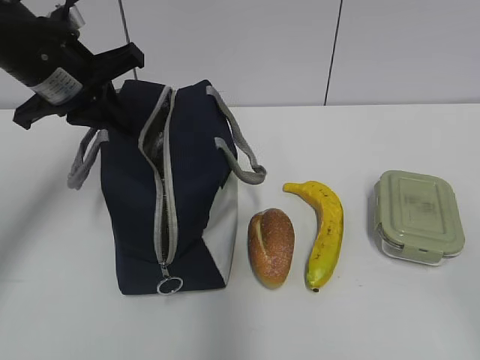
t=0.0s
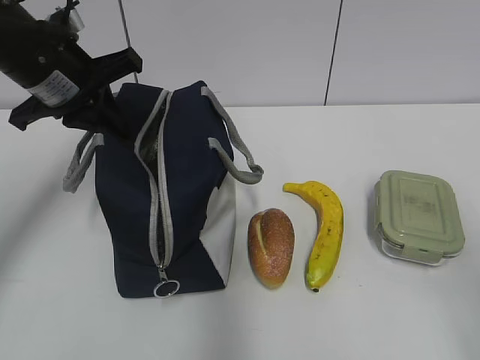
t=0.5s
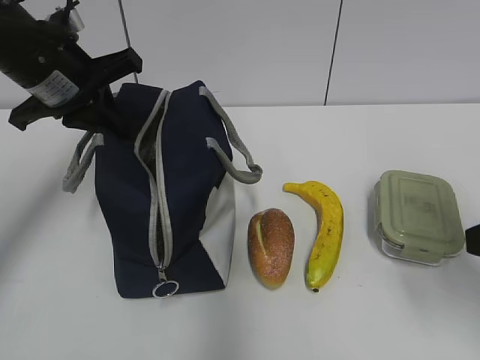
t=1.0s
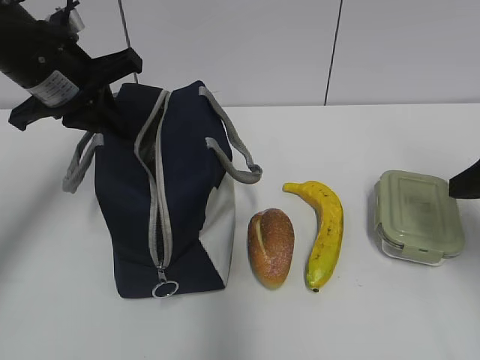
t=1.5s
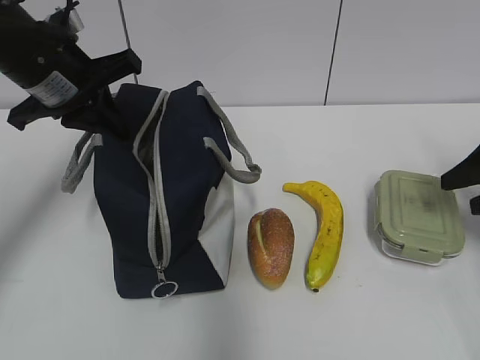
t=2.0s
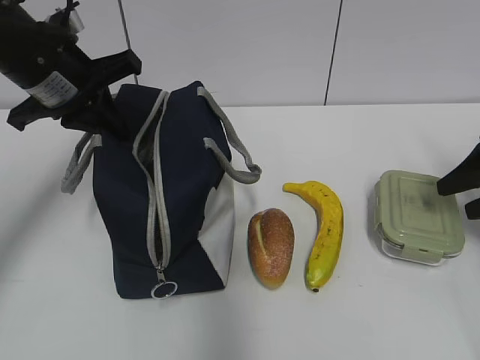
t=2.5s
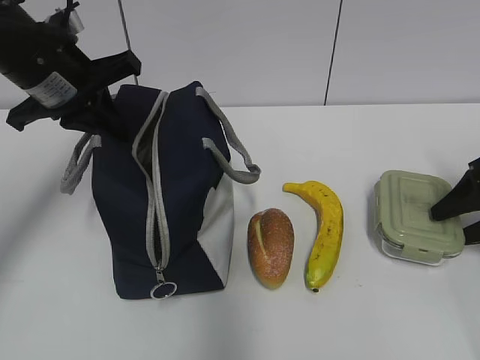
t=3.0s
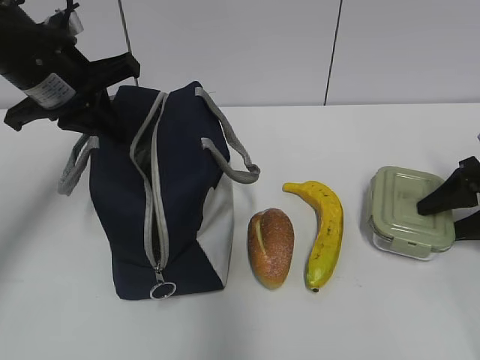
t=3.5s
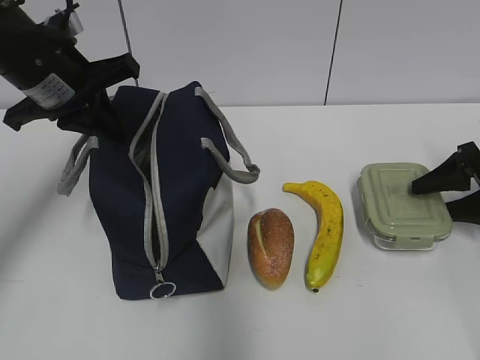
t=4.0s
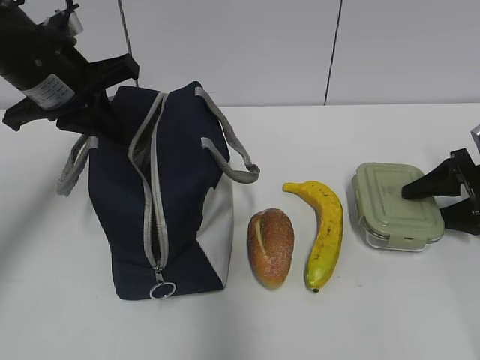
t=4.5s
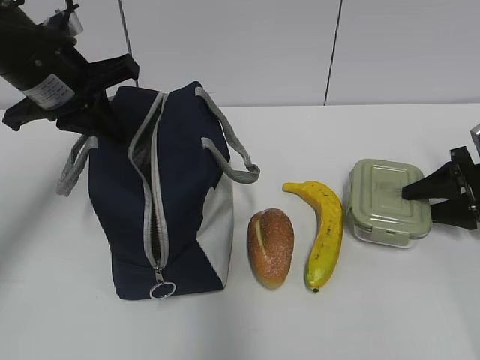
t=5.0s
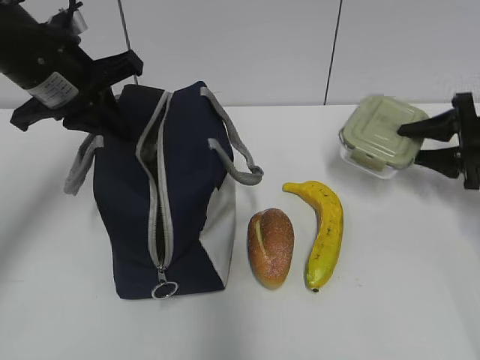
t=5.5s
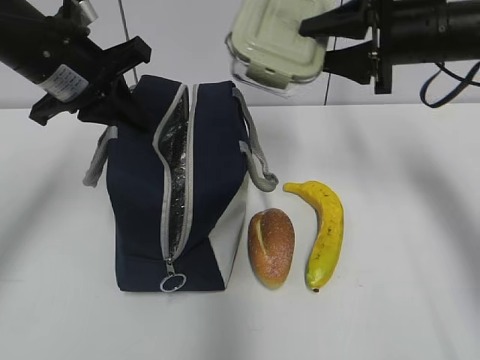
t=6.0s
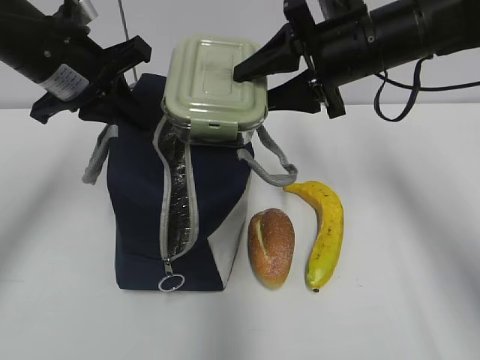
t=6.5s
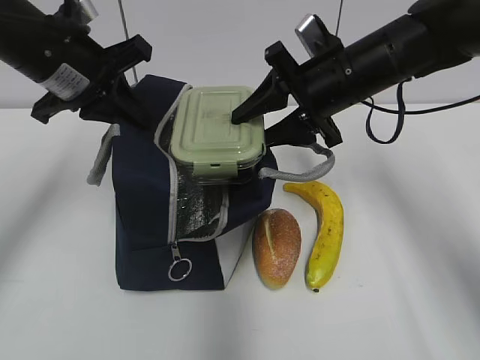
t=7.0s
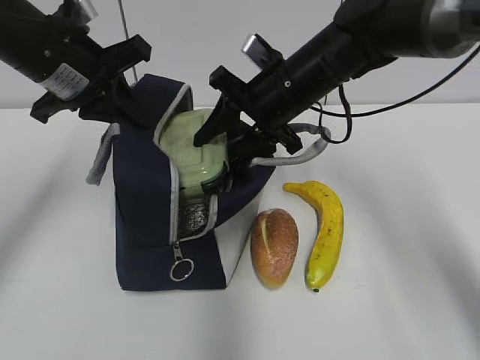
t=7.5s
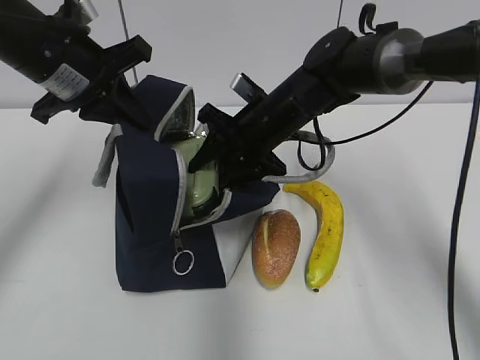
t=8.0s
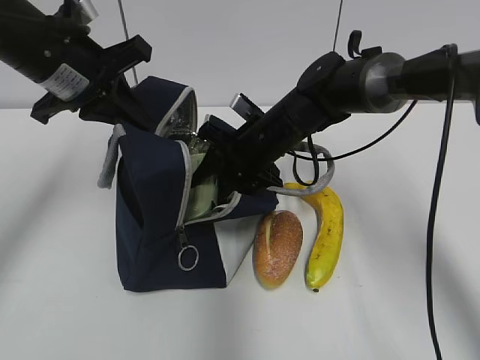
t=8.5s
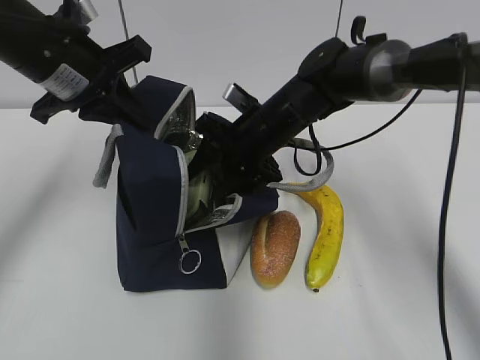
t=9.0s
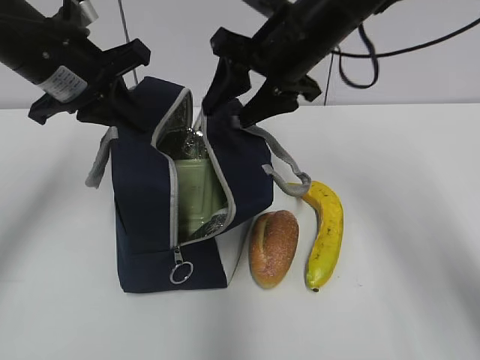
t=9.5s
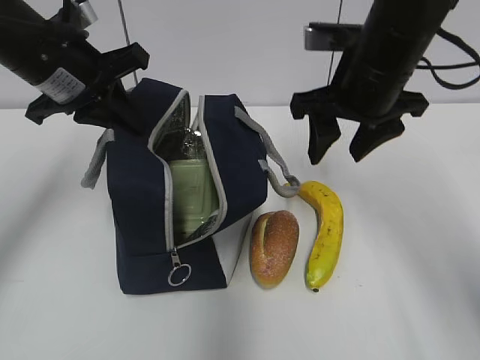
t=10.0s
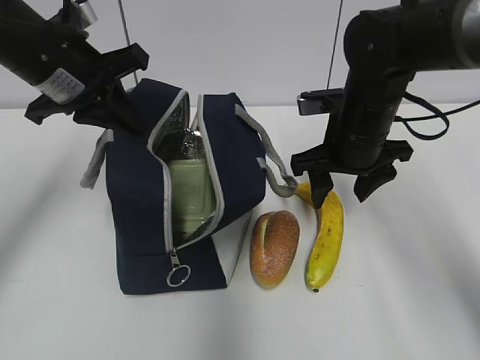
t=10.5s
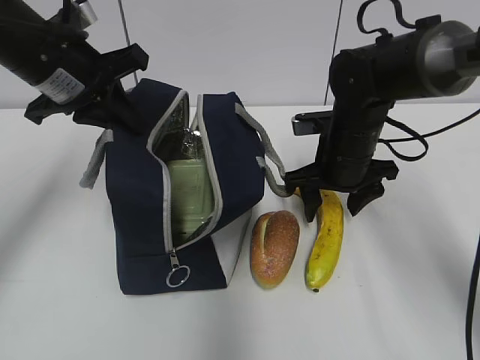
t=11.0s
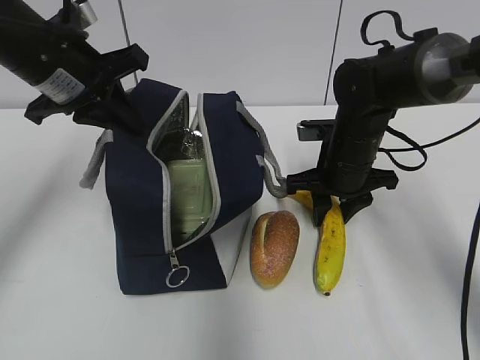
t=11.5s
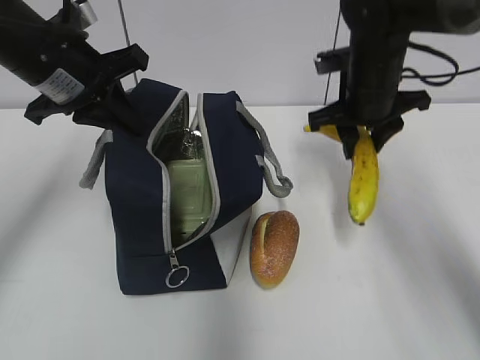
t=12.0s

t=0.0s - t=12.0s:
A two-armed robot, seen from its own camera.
Step, t=0.0s - t=5.0s: Grab the lunch box with your right hand.
Step, t=6.5s - t=9.0s: Place it into the bag with your right hand.
Step, t=9.5s - t=11.5s: Grab the banana with your right hand.
t=0.0s - t=2.0s: The right gripper heads forward, covering about 30 cm.
t=2.0s - t=4.0s: The right gripper shifts about 5 cm downward.
t=4.0s - t=6.0s: The right gripper heads to the left and upward, covering roughly 20 cm.
t=6.0s - t=8.0s: The right gripper moves to the left and downward, some 20 cm.
t=8.0s - t=10.0s: The right gripper shifts about 15 cm upward, to the right and backward.
t=10.0s - t=12.0s: The right gripper heads forward, covering roughly 5 cm, and moves approximately 15 cm downward and comes back.

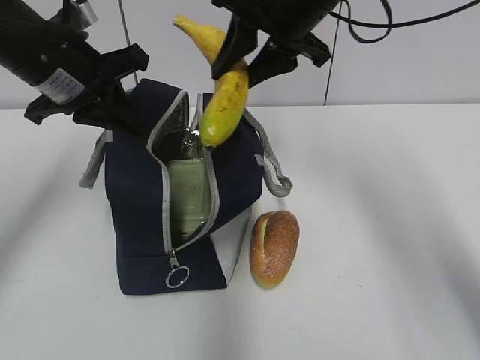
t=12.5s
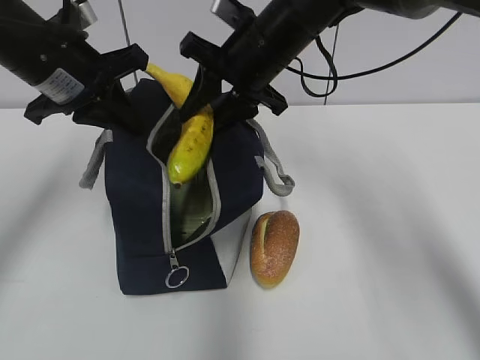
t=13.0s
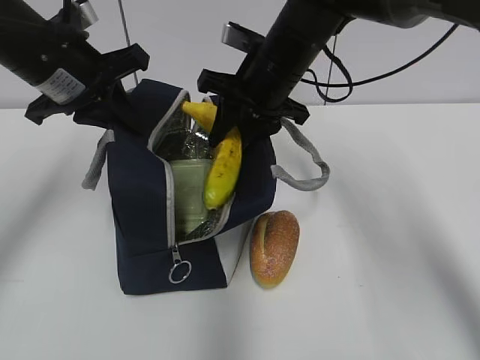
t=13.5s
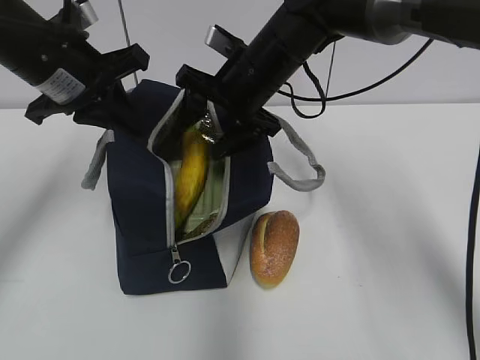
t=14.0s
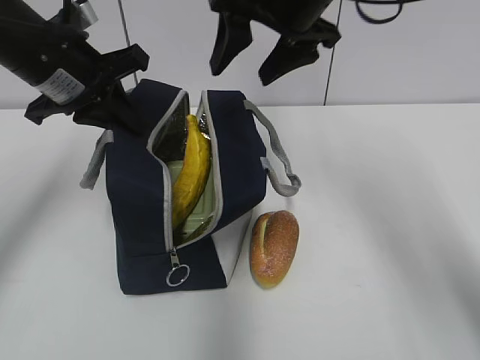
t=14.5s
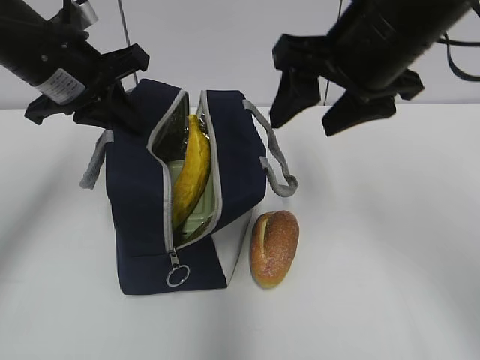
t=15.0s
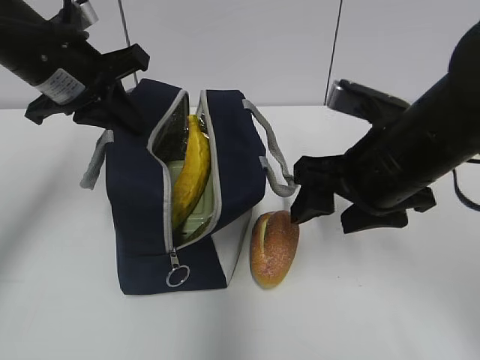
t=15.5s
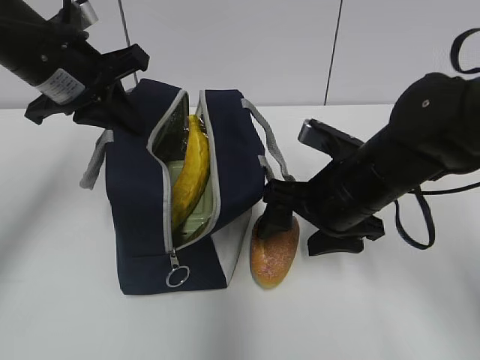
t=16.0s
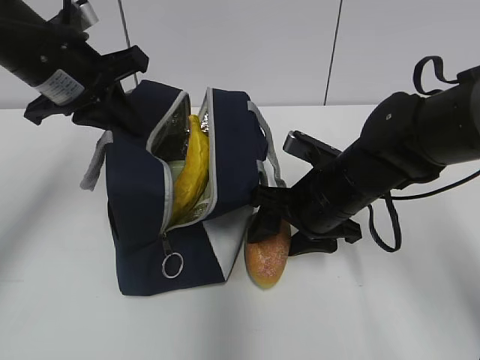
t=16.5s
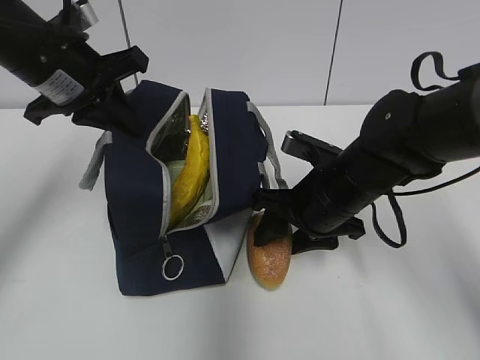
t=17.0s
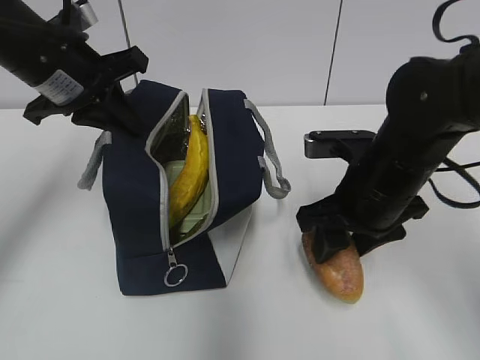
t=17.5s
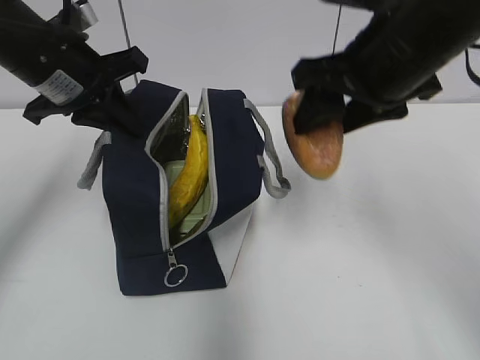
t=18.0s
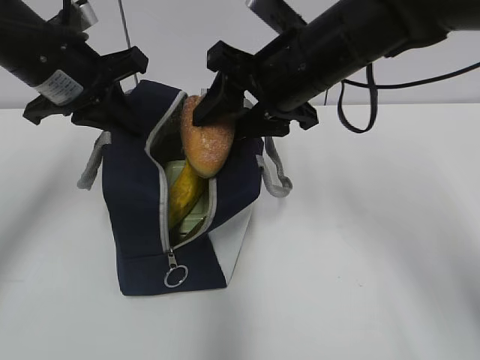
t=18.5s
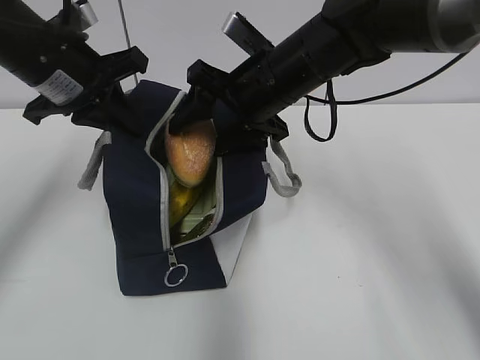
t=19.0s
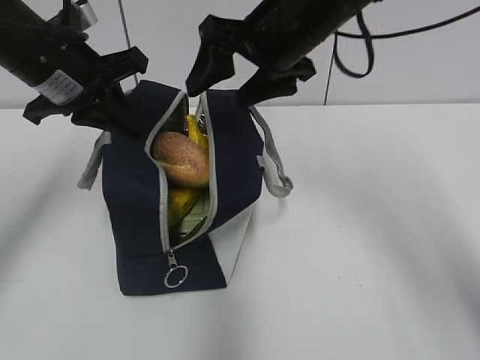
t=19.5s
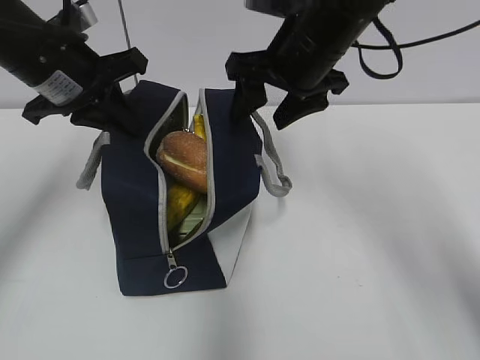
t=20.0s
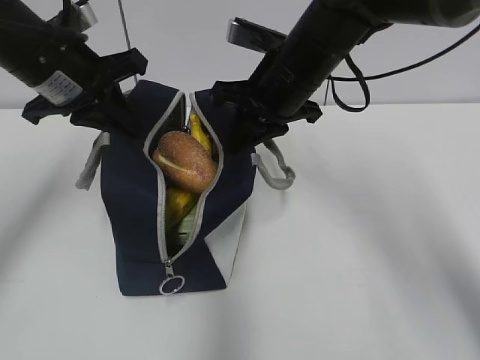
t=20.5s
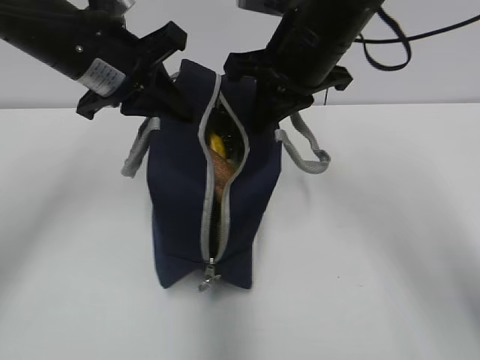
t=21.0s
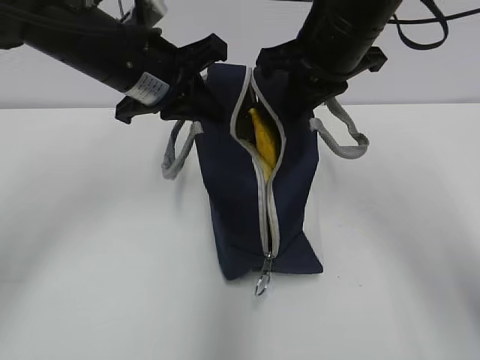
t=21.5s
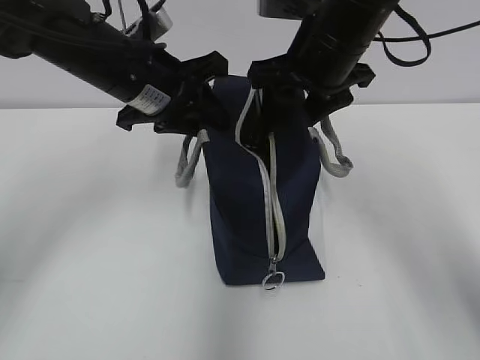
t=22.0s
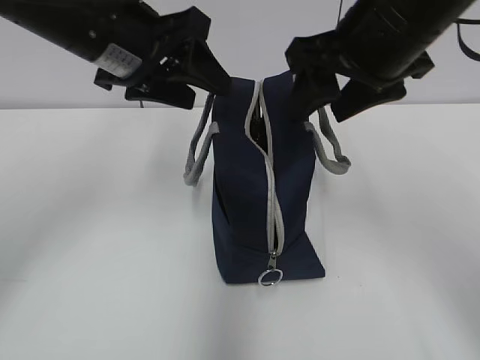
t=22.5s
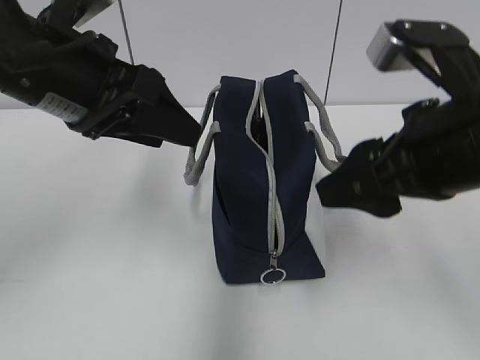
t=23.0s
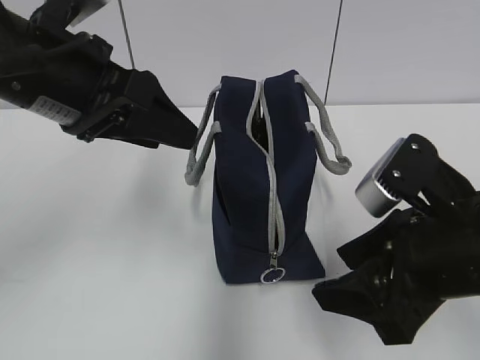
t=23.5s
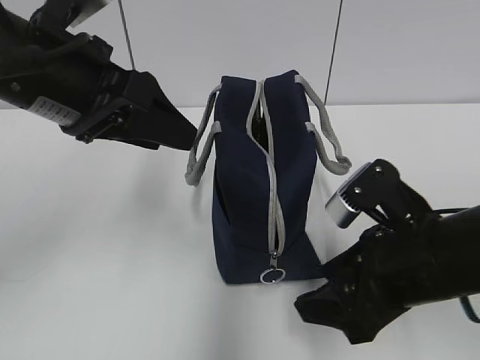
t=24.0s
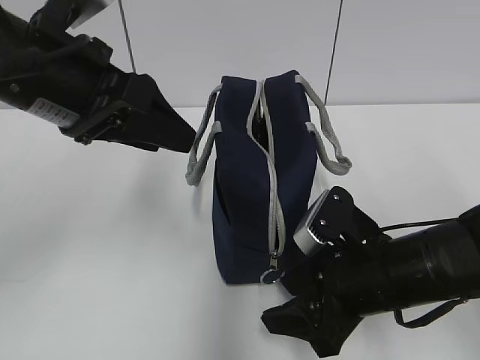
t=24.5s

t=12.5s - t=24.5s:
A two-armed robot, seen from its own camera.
Step, t=12.5s - t=14.0s: Place it into the bag with your right hand.
Step, t=14.5s - t=17.0s: Grab the bread with your right hand.
Step, t=19.5s - t=20.5s: Grab the lunch bag with your right hand.
Step, t=21.0s - t=22.0s: Move the lunch bag to the right.
t=12.5s - t=14.5s: The right gripper reaches approximately 10 cm downward, then returns, and opens.
t=14.5s - t=16.5s: The right gripper travels downward by roughly 20 cm.
t=16.5s - t=18.5s: The right gripper travels upward by approximately 15 cm.
t=18.5s - t=20.5s: The right gripper changes place by some 5 cm, and closes.
t=20.5s - t=22.5s: The right gripper is displaced backward, upward and to the right by approximately 15 cm, and opens up, while the left gripper goes approximately 5 cm to the right, and opens.
t=22.5s - t=24.5s: The left gripper is displaced backward by about 5 cm. Meanwhile the right gripper is displaced downward by about 20 cm.

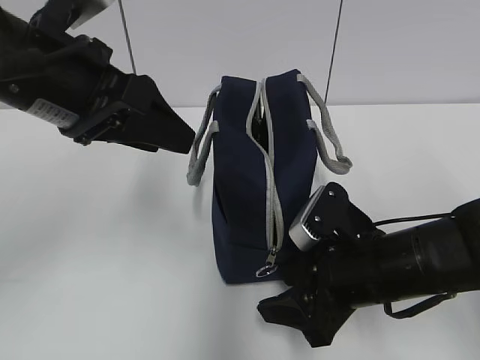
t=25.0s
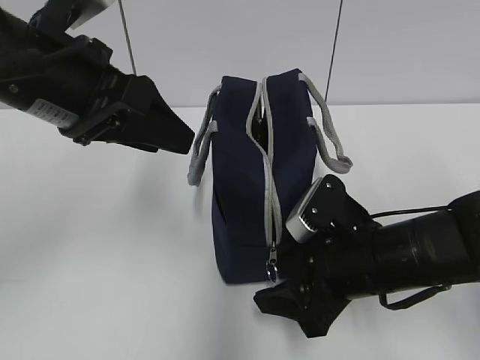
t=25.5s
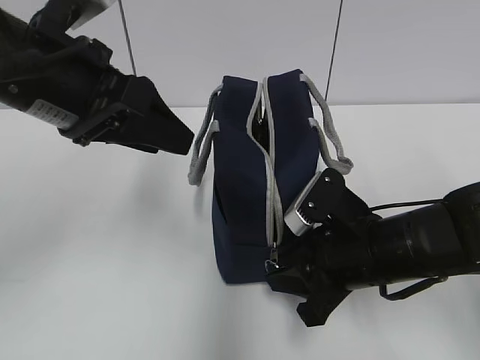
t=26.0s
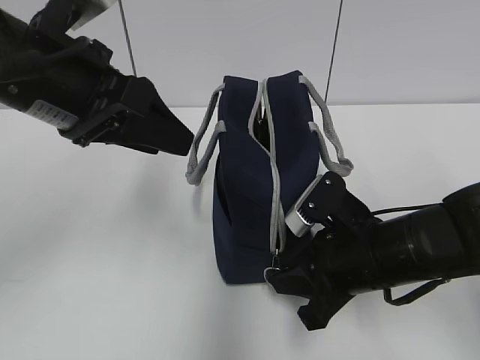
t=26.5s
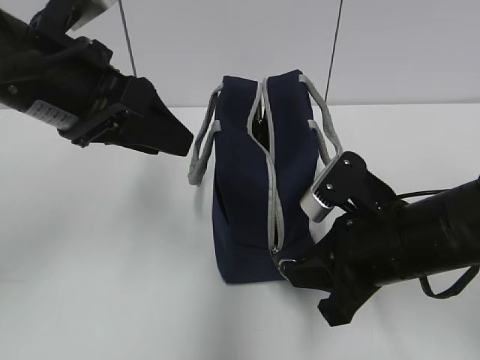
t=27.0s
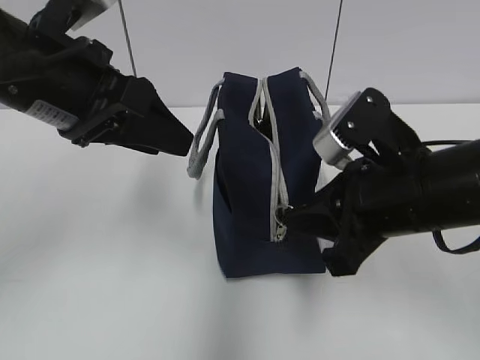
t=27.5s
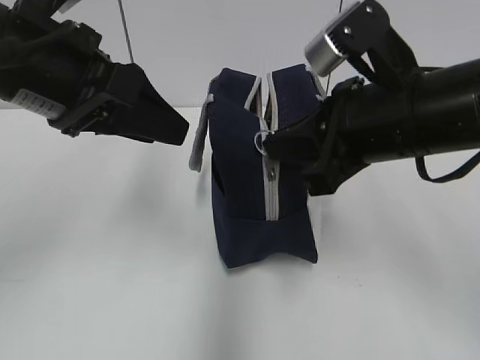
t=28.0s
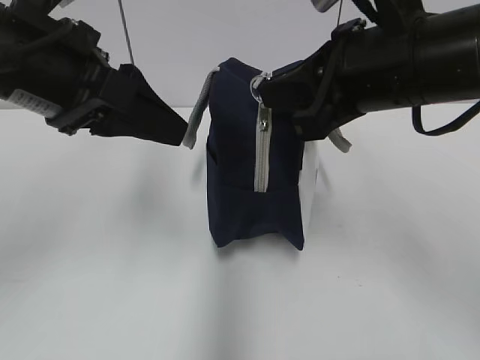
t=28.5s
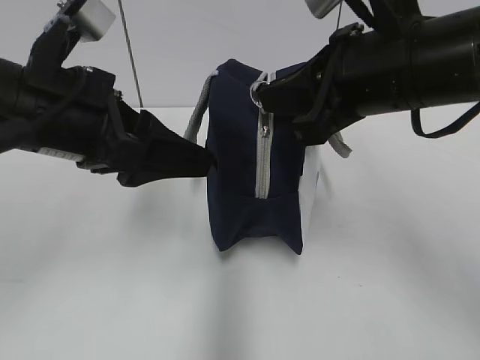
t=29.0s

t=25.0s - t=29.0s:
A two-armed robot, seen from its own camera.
t=25.0s - t=27.0s: The right gripper closes.
t=27.0s - t=29.0s: The right gripper is displaced upward by roughly 15 cm.
